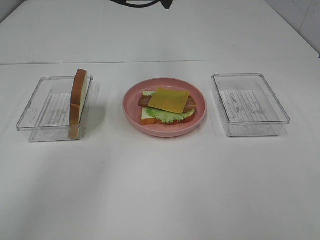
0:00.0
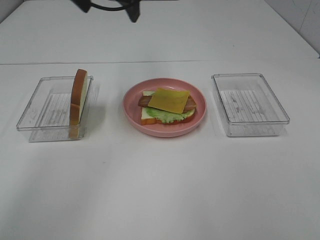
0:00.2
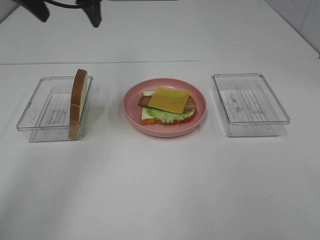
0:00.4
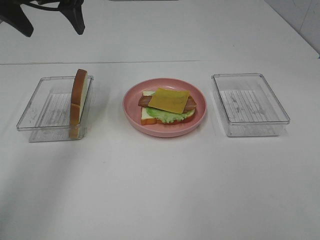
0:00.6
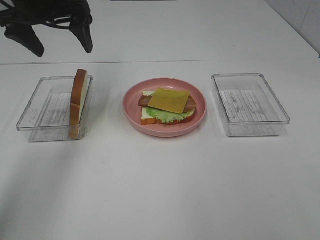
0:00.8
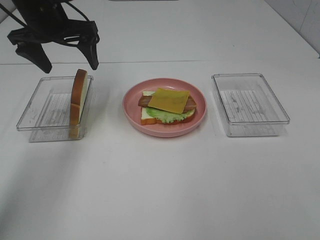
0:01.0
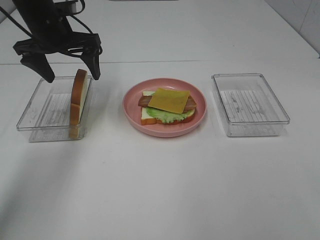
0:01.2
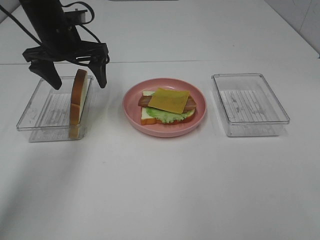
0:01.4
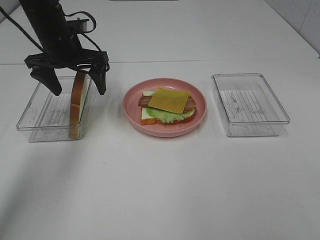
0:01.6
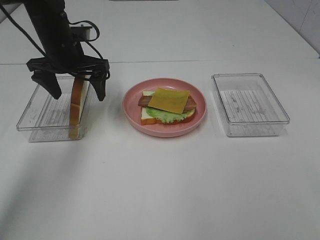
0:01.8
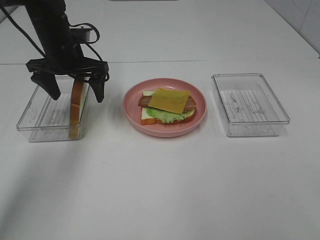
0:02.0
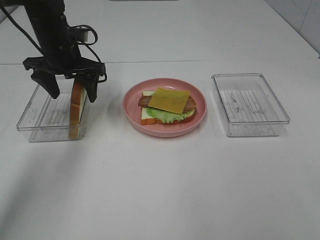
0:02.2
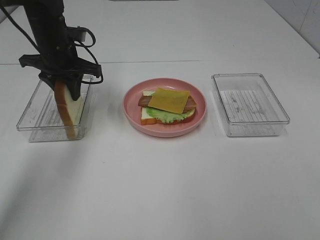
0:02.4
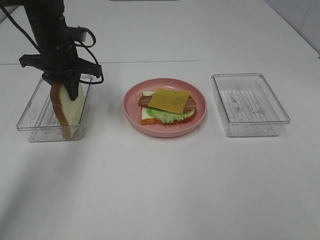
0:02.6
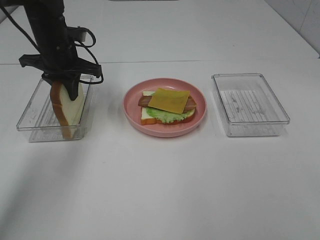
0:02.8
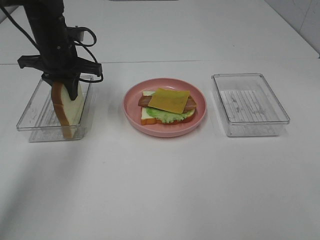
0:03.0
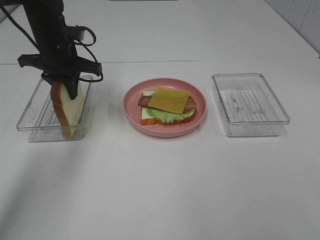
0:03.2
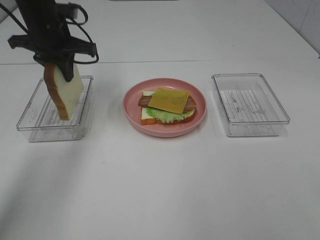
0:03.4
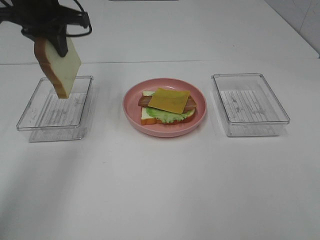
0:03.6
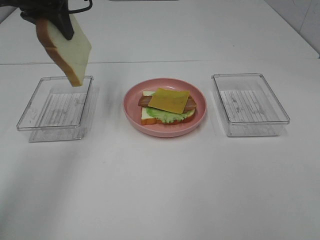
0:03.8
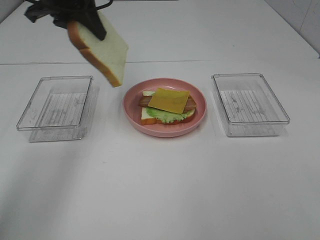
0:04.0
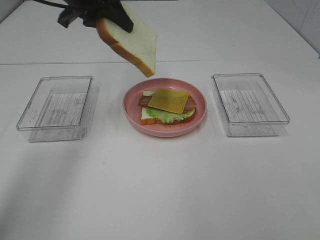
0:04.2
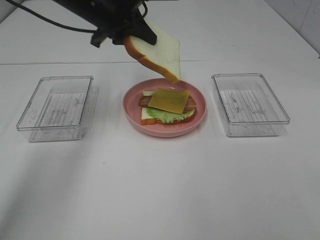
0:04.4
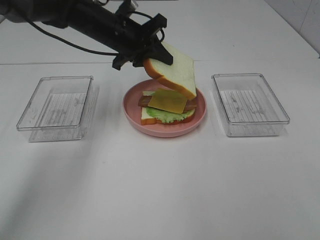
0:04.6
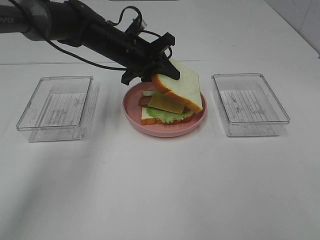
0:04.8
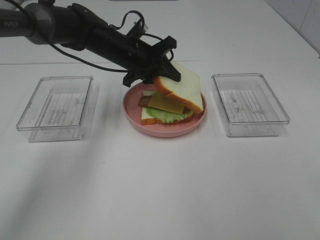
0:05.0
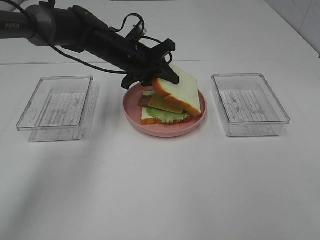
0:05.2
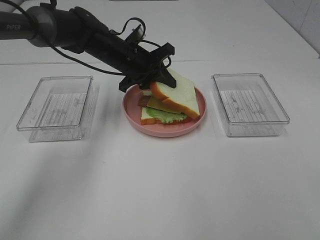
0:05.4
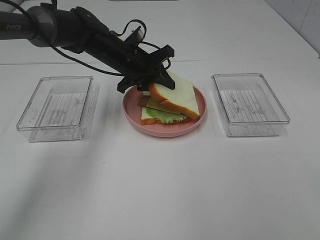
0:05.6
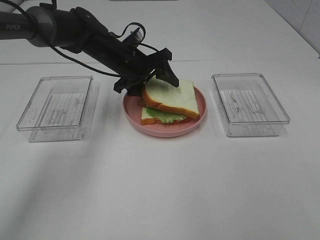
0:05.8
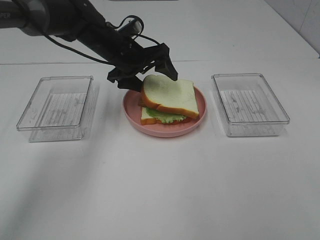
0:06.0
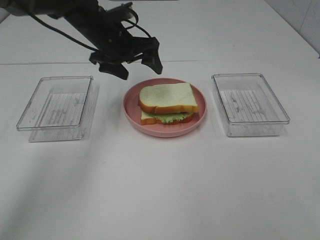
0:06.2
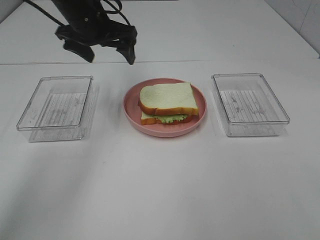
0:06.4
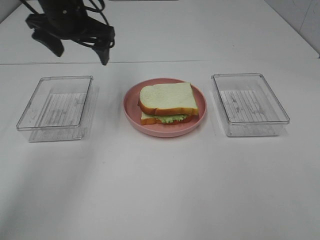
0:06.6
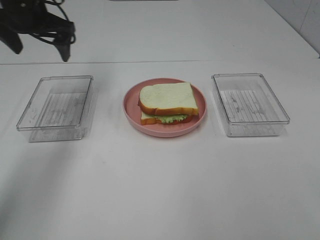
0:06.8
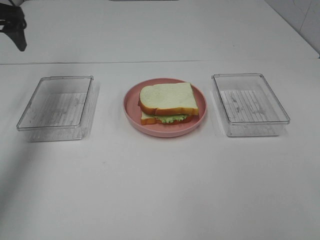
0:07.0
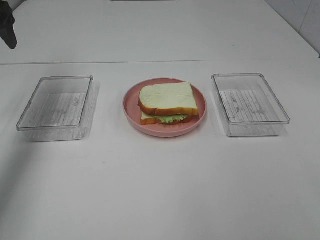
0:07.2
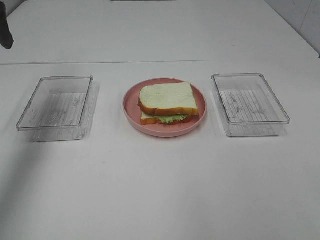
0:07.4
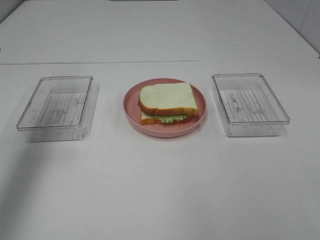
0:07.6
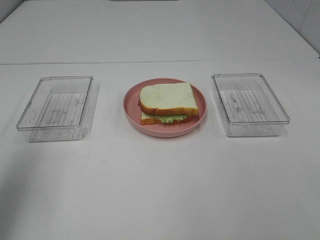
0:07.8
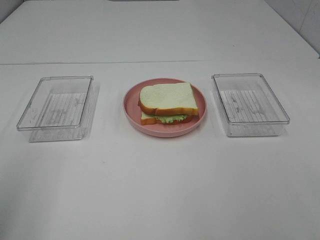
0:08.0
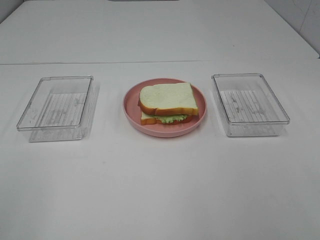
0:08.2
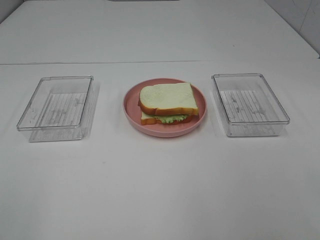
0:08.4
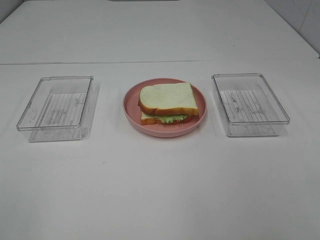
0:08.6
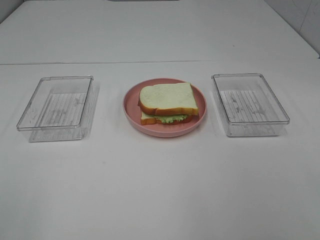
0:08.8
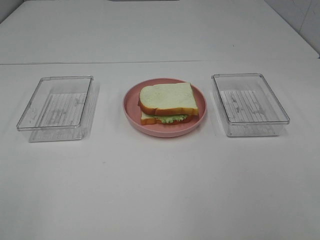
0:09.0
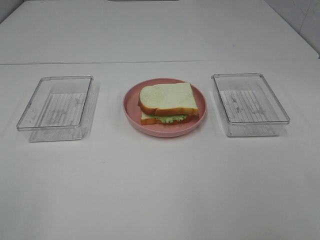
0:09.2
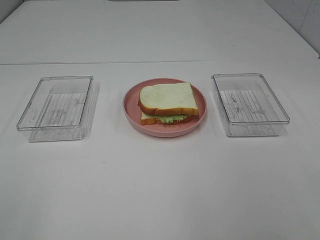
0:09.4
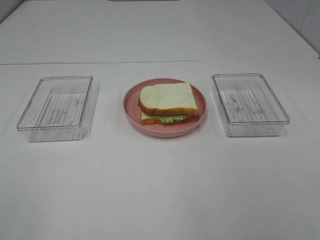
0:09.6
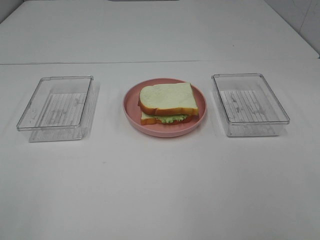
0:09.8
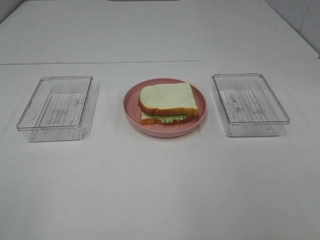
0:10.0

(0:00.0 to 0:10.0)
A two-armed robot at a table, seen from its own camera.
Task of the whole recording: Make sandwiches.
Step, 0:00.0 - 0:02.8: Left hand:grab the bread slice.
Step, 0:03.0 - 0:06.2: Left hand:place the bread slice on the cheese slice.
0:00.0 - 0:01.4: The left gripper travels downward and to the left by some 15 cm.
0:01.4 - 0:02.8: The left gripper closes.
0:02.8 - 0:04.2: The left gripper travels upward by roughly 10 cm.
0:04.2 - 0:05.8: The left gripper is displaced downward and to the right by some 15 cm, and opens.
0:05.8 - 0:07.2: The left gripper shifts some 30 cm to the left and upward.
0:07.2 - 0:08.6: The left gripper goes some 40 cm backward.
0:08.6 - 0:10.0: Neither gripper changes place.

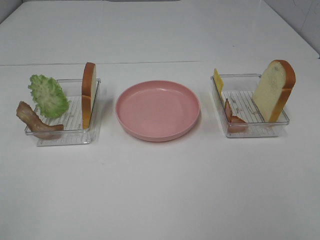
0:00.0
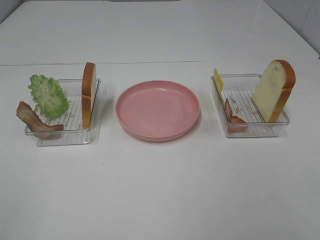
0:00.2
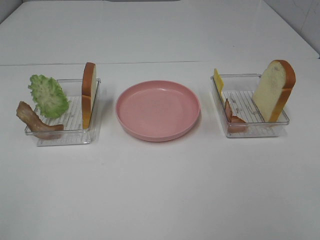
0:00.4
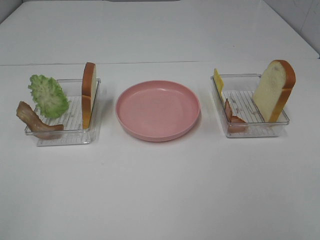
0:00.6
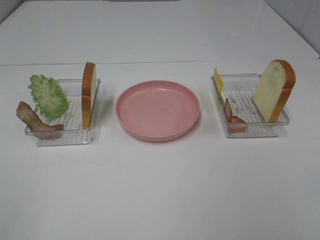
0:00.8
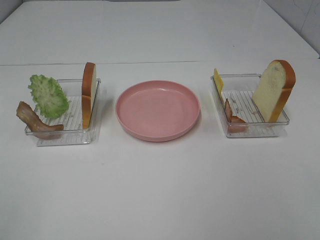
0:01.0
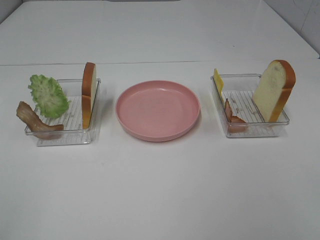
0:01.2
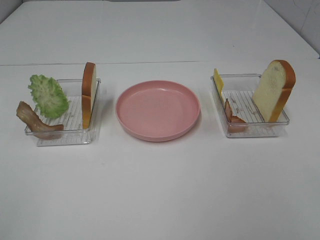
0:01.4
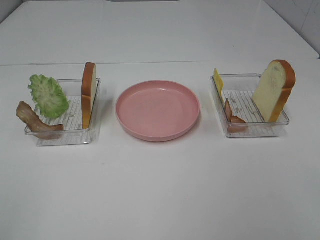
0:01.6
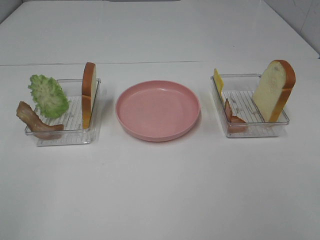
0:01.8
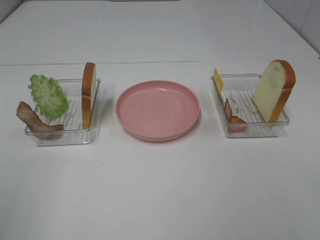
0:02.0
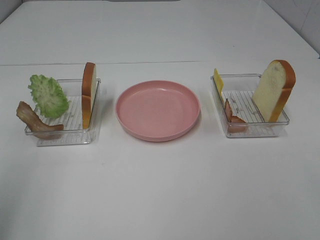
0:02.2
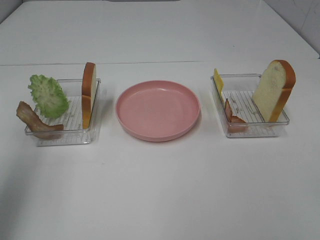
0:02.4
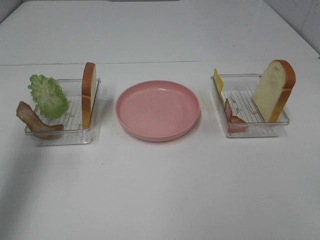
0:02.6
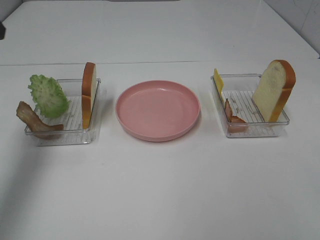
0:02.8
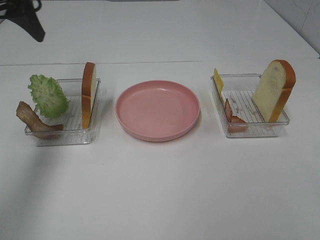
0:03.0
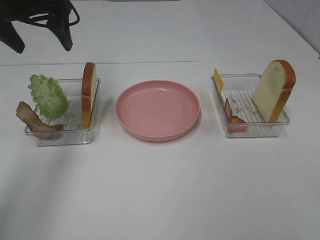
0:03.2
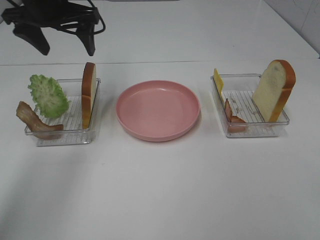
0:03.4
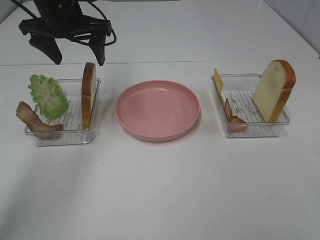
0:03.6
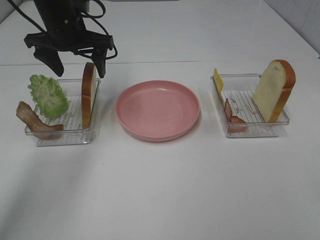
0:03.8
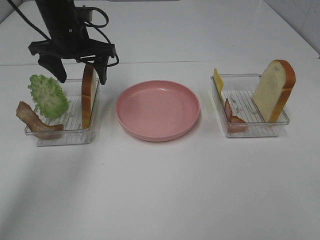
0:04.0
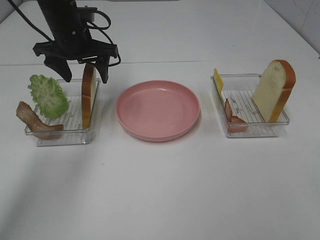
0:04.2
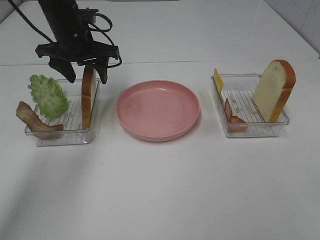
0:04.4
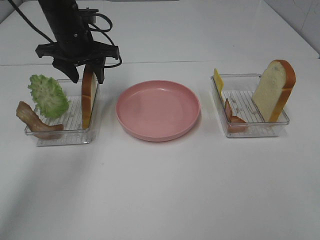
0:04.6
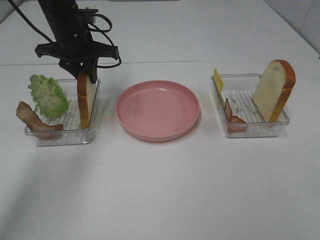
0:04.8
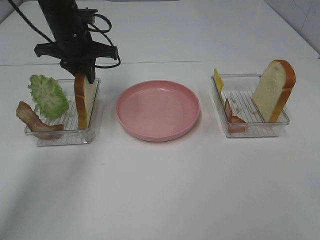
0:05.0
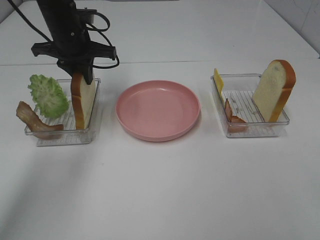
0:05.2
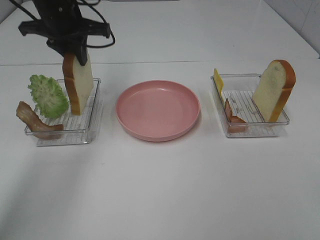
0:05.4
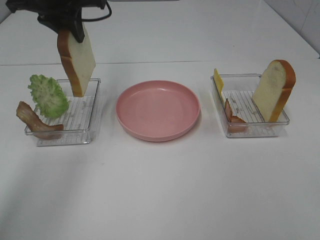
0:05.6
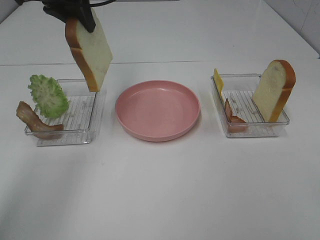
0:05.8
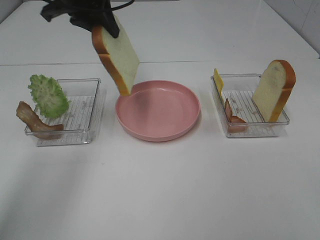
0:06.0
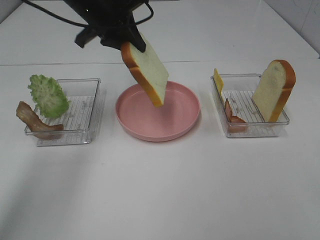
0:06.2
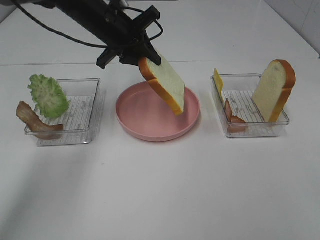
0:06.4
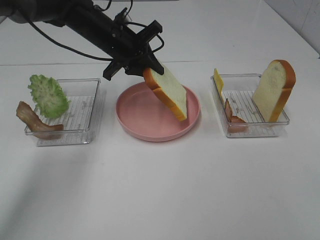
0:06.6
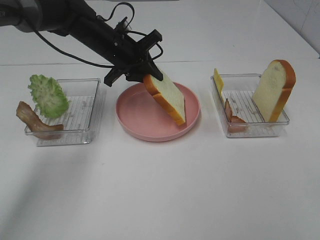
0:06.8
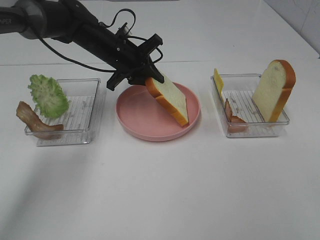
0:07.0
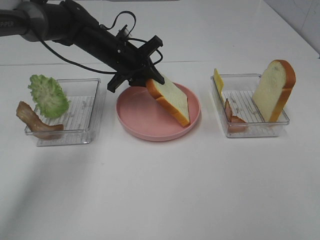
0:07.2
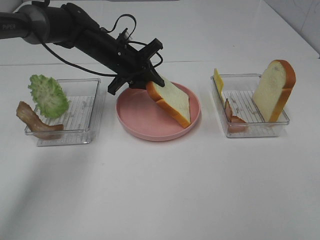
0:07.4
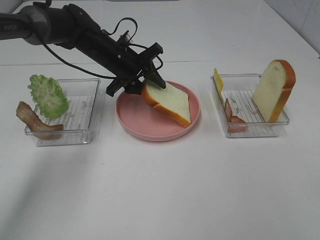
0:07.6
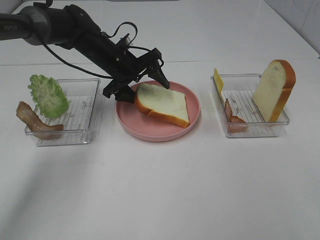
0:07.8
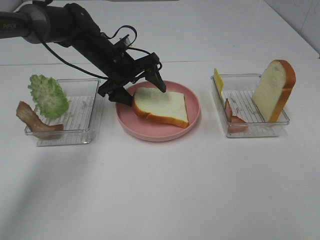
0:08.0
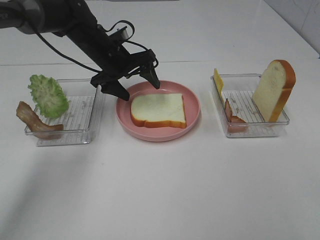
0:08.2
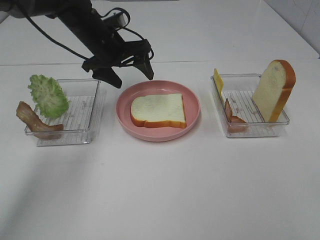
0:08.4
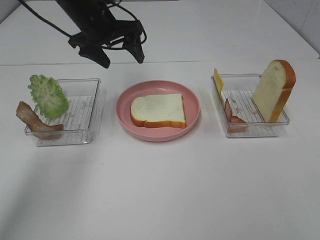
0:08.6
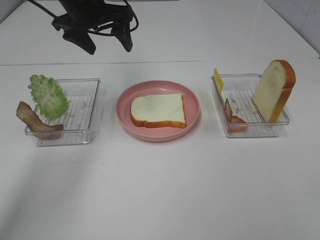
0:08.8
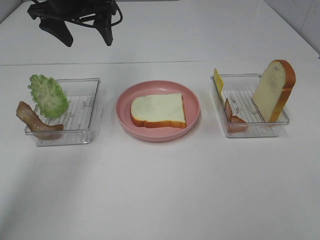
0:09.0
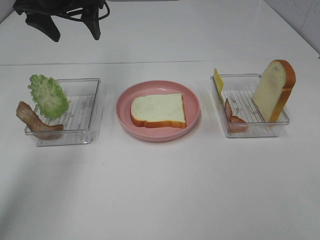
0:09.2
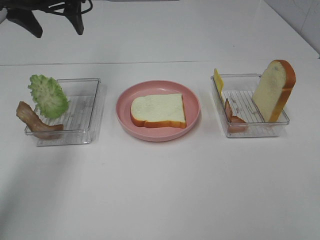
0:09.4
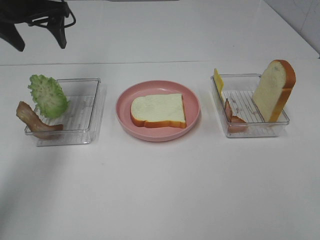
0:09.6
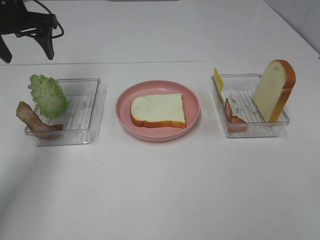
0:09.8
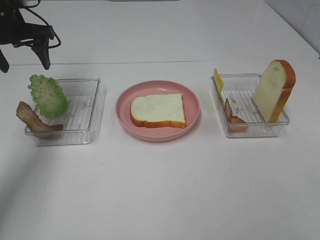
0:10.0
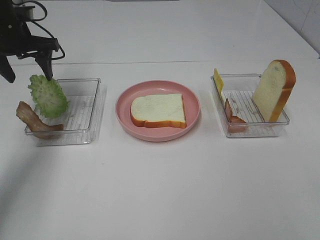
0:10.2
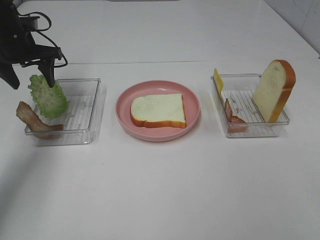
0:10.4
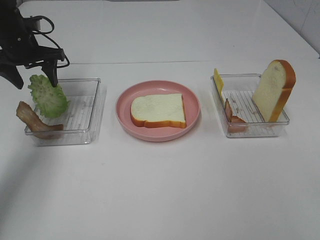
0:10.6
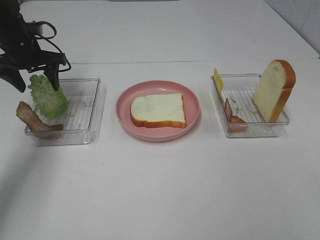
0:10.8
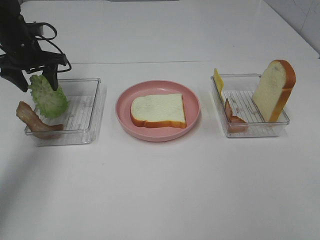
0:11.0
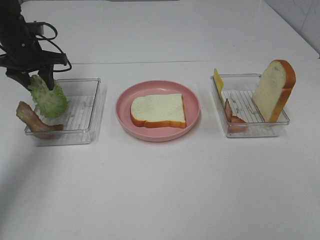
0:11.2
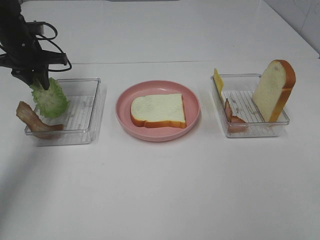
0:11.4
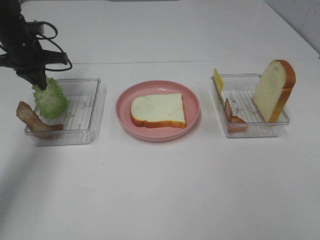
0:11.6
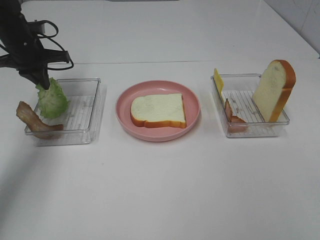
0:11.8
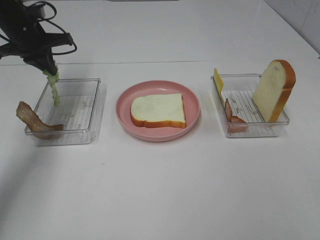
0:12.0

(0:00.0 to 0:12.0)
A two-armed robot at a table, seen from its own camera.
Task of the whole recording: Make sandwiches.
Step, 0:00.0 - 0:05.0: Left hand:grab the bread slice.
Step, 0:05.2 - 0:08.2: Left hand:place the bread slice on the plate.
Step, 0:08.4 - 0:11.6: Left hand:grab the lettuce slice.
0:00.0 - 0:01.6: Neither gripper changes place.
0:01.6 - 0:03.0: The left gripper is displaced forward by about 35 cm.
0:03.0 - 0:04.4: The left gripper moves downward, to the right and forward, about 20 cm.
0:04.4 - 0:06.0: The left gripper heads upward, covering about 10 cm, and closes up.
0:06.0 - 0:07.6: The left gripper goes some 15 cm downward.
0:07.6 - 0:09.0: The left gripper shifts about 15 cm upward and to the left, and opens its fingers.
0:09.0 - 0:10.4: The left gripper shifts approximately 15 cm to the left and downward.
0:10.4 - 0:12.0: The left gripper closes its fingers.
